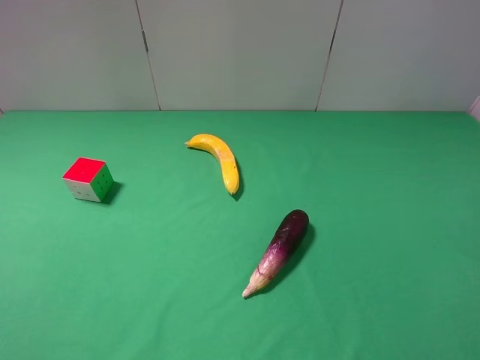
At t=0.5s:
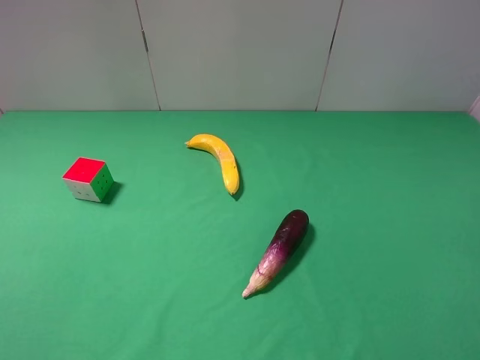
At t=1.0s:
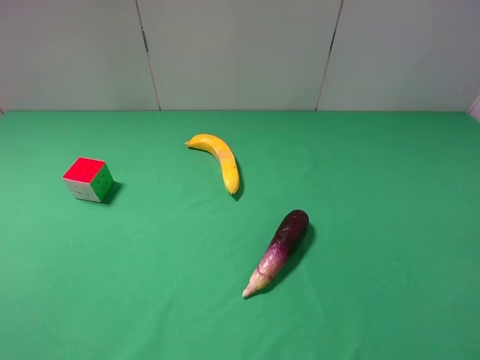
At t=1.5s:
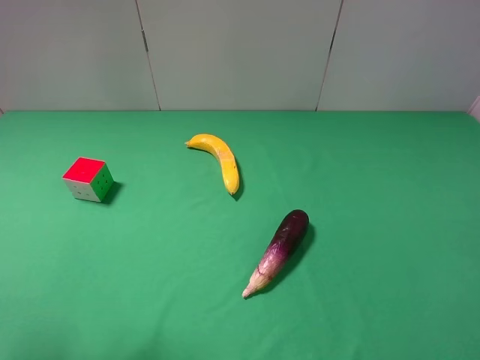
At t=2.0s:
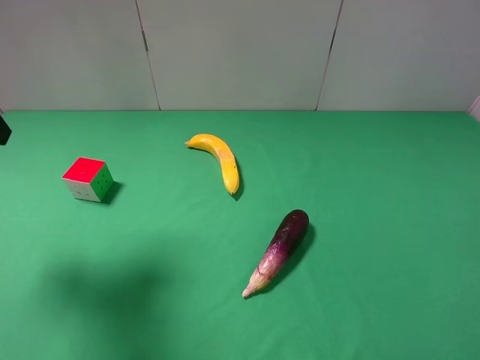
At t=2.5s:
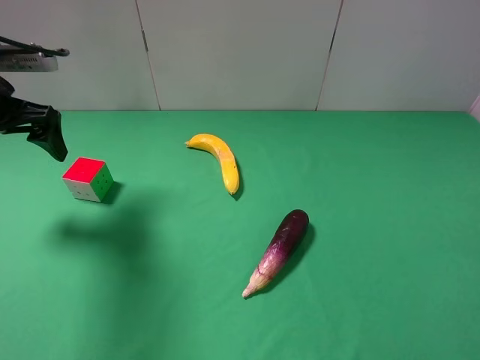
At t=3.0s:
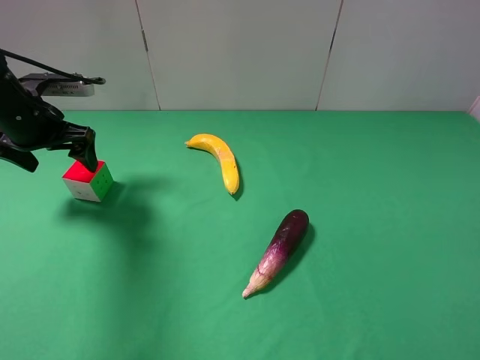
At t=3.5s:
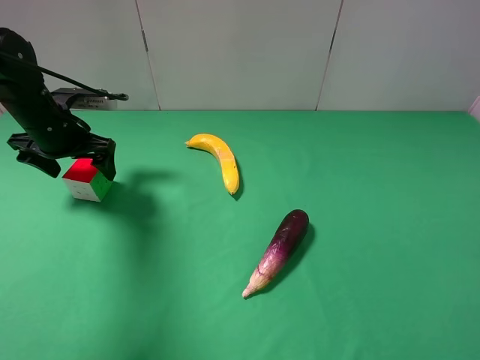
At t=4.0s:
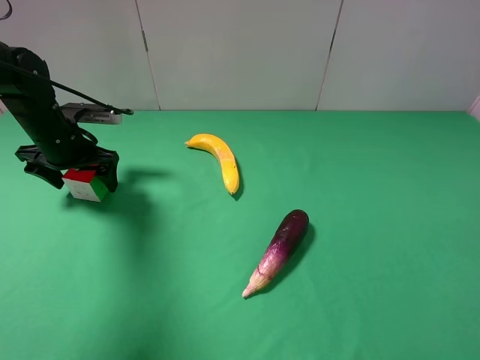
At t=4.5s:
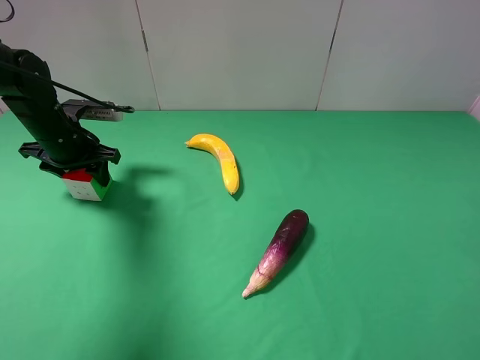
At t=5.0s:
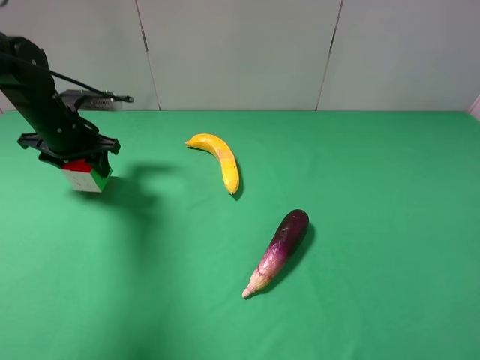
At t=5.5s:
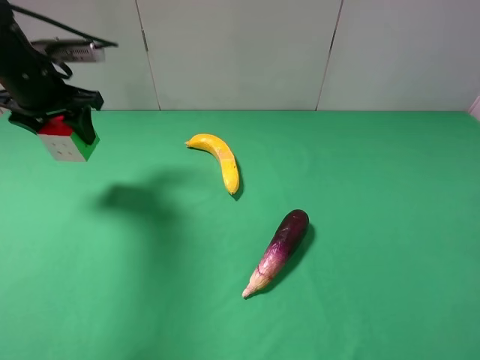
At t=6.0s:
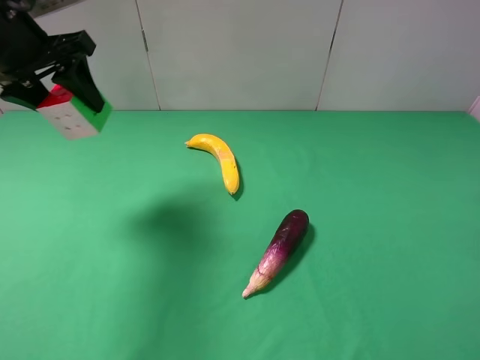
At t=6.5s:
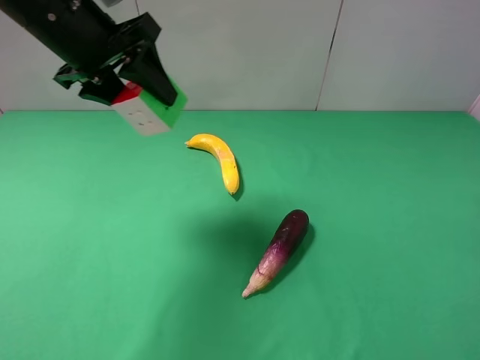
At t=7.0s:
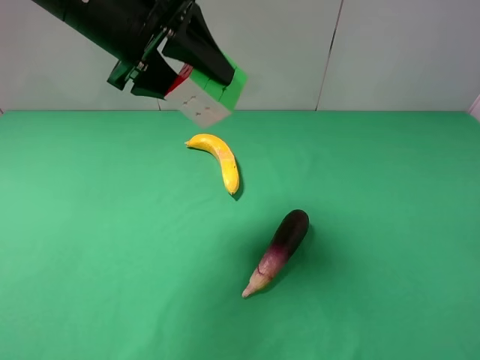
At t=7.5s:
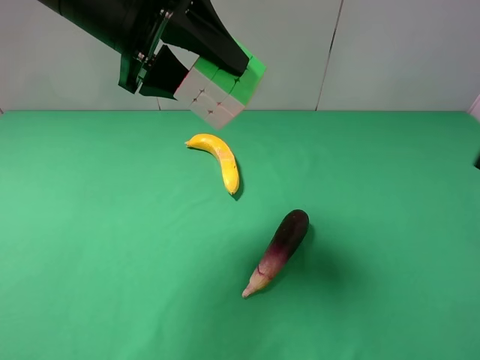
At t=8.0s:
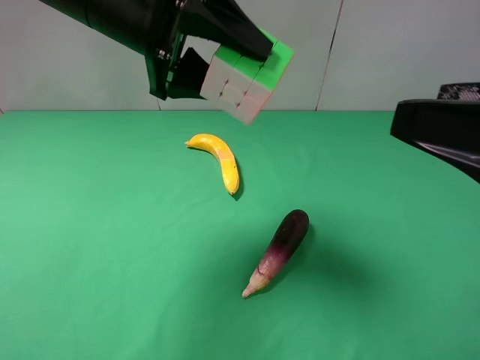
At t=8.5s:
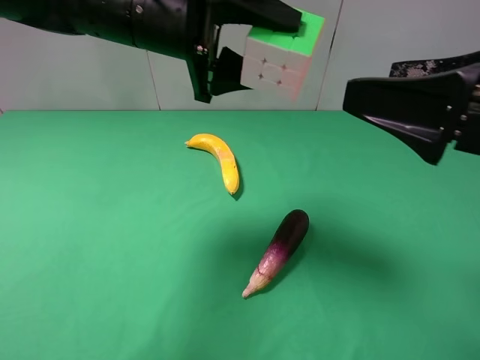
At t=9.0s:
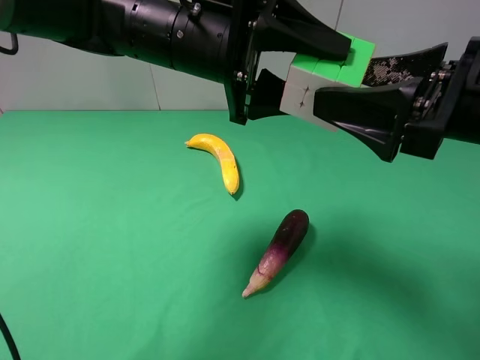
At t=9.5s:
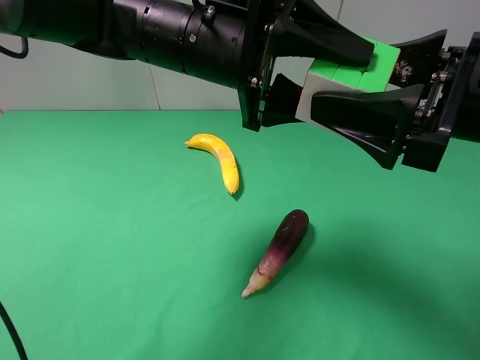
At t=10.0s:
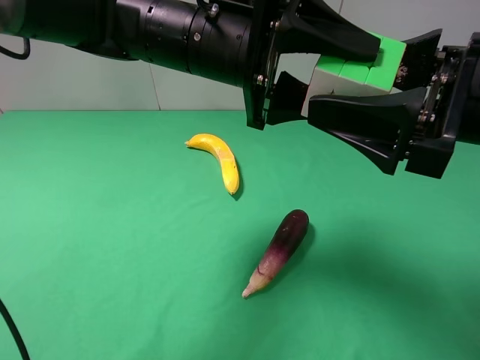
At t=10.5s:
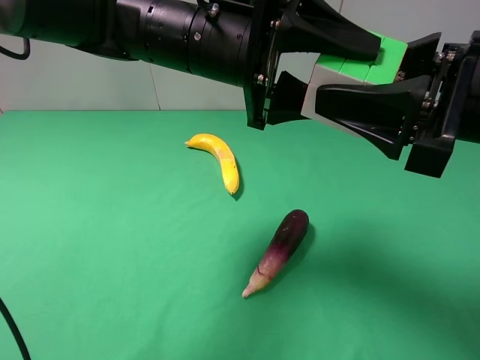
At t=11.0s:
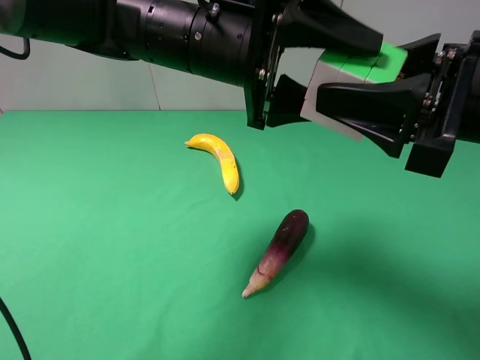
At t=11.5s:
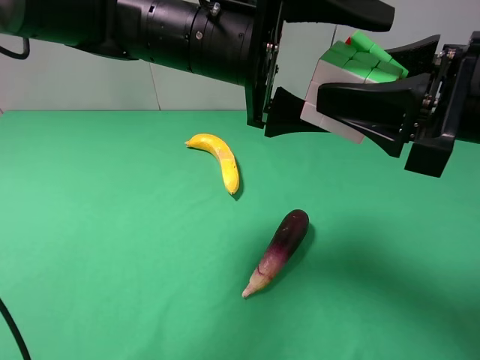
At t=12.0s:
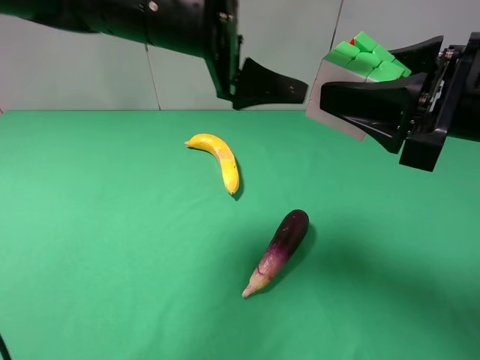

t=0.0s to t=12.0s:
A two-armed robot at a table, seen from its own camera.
Task of the whole recording: use the left gripper to pick up the item and transfer it from the left gripper to the right gripper.
Step, t=0.0s to t=4.0s: Use the left gripper to grab the Rubik's Cube on the left side of the table.
Step, t=4.5s to t=11.0s: Pass the Rubik's Cube to the right gripper.
t=0.0s to t=2.0s: The left gripper shifts approximately 25 cm forward.
t=2.0s to t=4.0s: The left gripper shifts about 25 cm downward and forward.
t=4.0s to t=6.0s: The left gripper goes roughly 15 cm upward, and closes.
t=6.0s to t=8.0s: The left gripper heads to the right, covering approximately 15 cm, while the right gripper shifts some 10 cm forward and to the left.
t=8.0s to t=10.0s: The left gripper goes about 10 cm to the right. Meanwhile the right gripper moves forward, about 5 cm.
t=10.0s to t=12.0s: The left gripper opens. Meanwhile the right gripper closes up.

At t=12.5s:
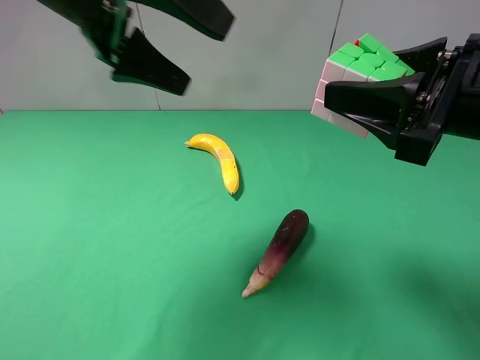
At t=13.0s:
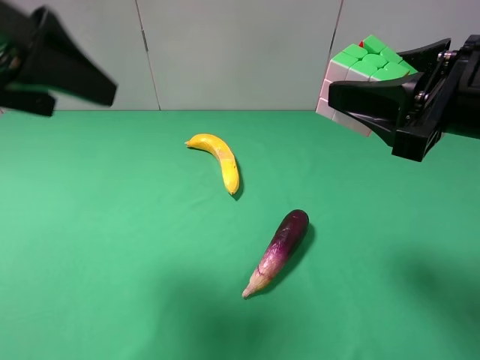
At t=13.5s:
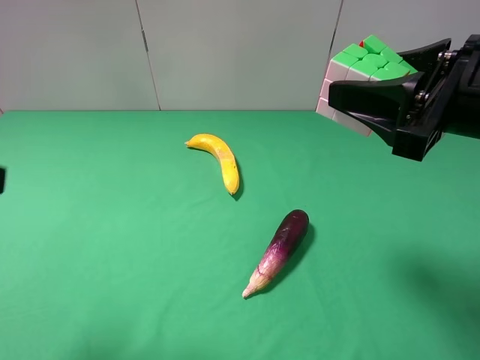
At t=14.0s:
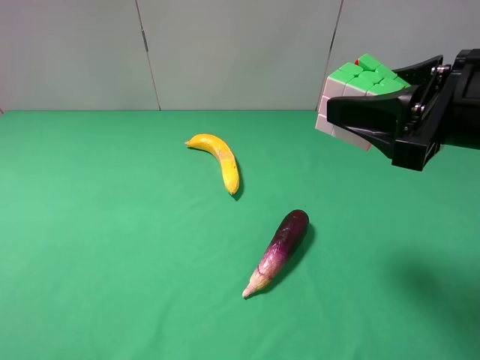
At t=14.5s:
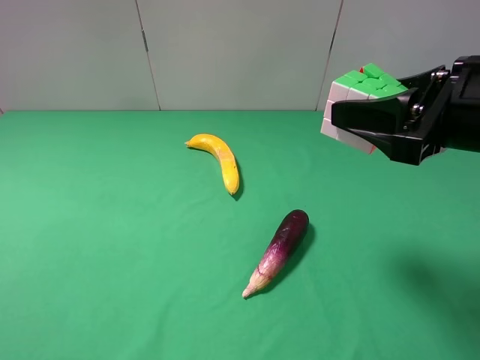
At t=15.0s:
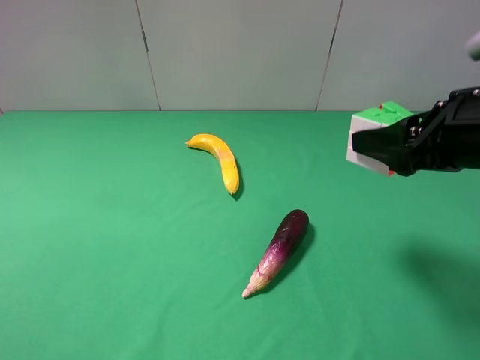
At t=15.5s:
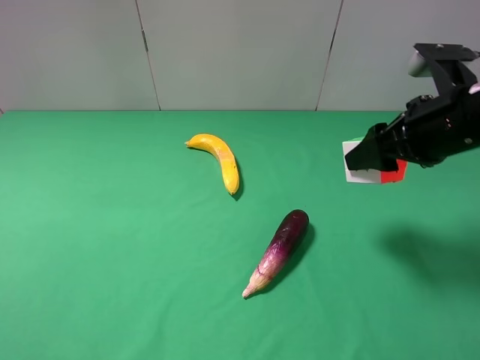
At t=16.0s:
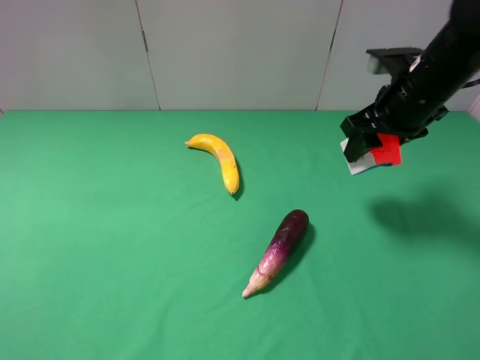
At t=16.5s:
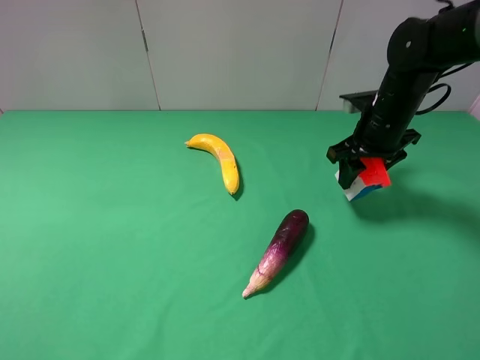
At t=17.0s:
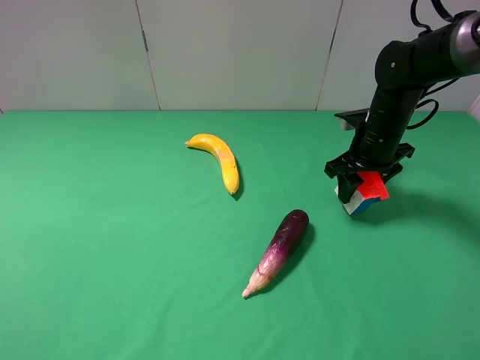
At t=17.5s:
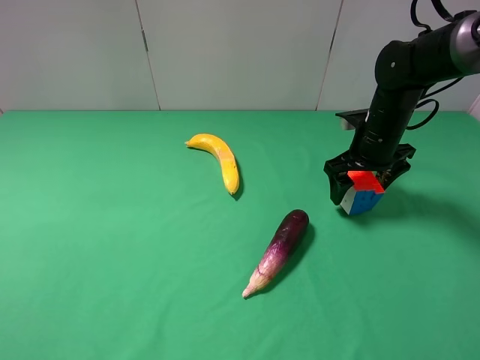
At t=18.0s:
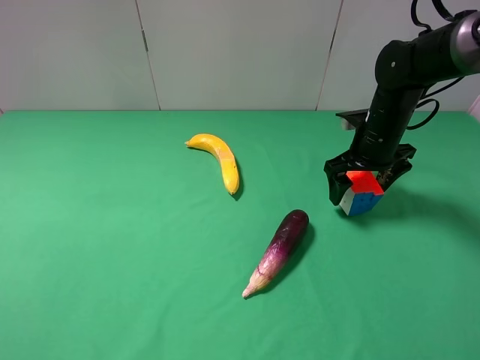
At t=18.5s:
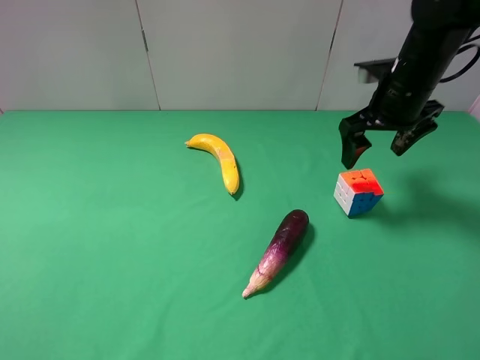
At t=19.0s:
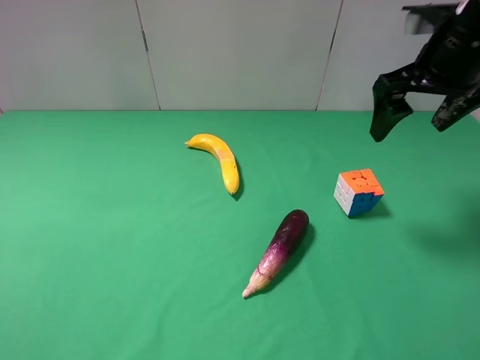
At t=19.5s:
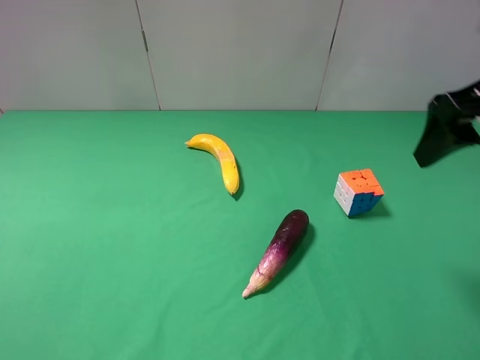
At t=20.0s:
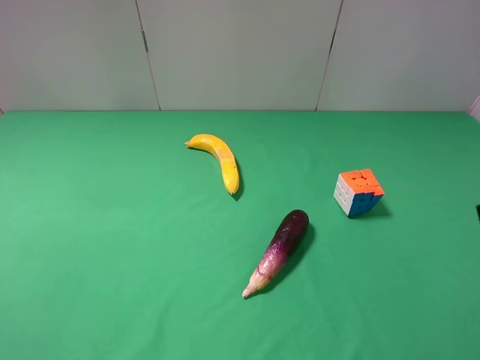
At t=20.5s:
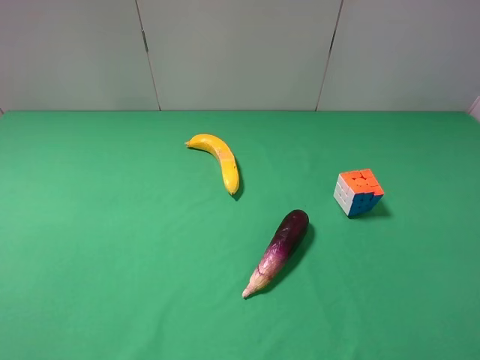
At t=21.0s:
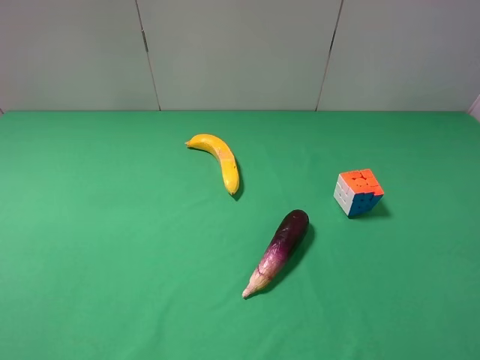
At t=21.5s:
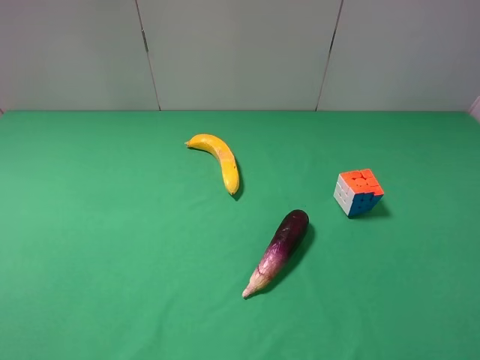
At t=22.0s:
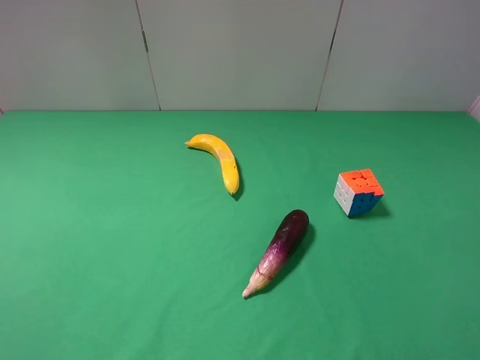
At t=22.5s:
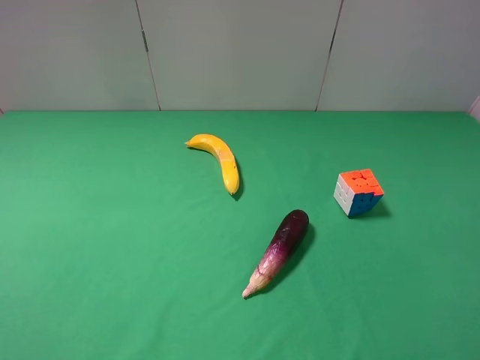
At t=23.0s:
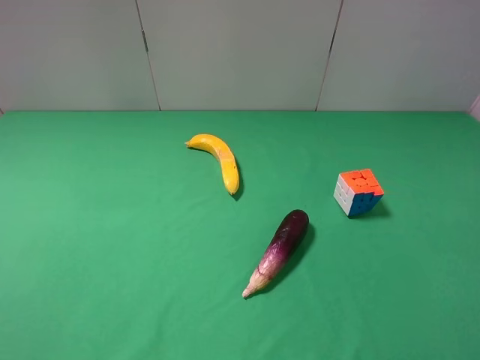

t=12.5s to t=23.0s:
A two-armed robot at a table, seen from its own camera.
Task of the whole recording: use the left gripper to pick up the item and transfer it from the left gripper to the right gripper.
Step, t=12.5s to t=17.5s: The right gripper places Rubik's Cube on the right side of the table.
t=12.5s to t=14.5s: The left gripper is displaced backward and to the left by roughly 30 cm.
t=14.5s to t=16.5s: The right gripper travels forward and downward by about 20 cm.
t=16.5s to t=19.0s: The right gripper heads upward and backward, covering some 15 cm, and opens its fingers.
t=19.0s to t=21.0s: The right gripper goes approximately 30 cm backward.
